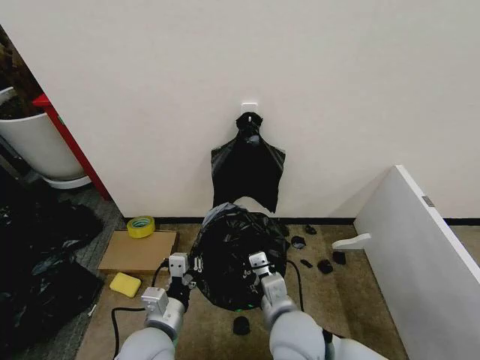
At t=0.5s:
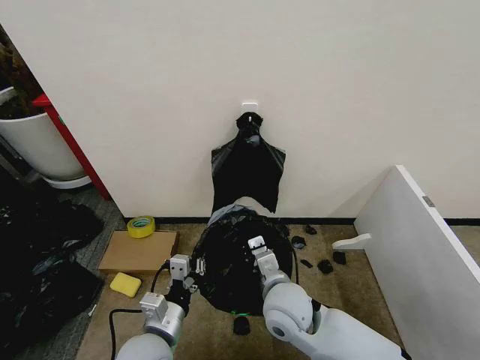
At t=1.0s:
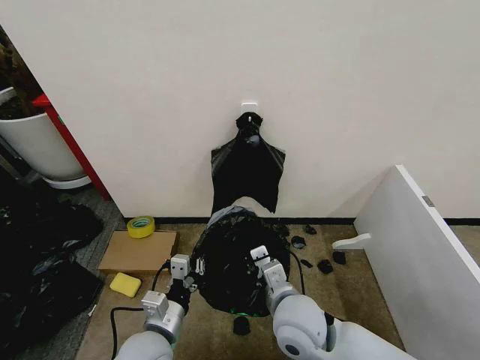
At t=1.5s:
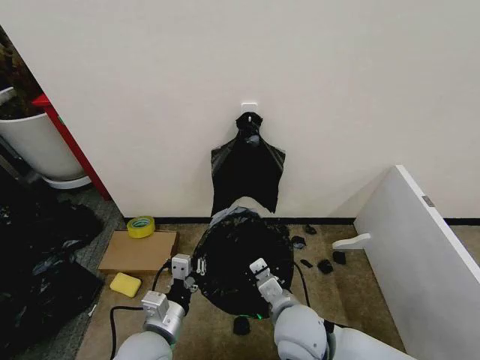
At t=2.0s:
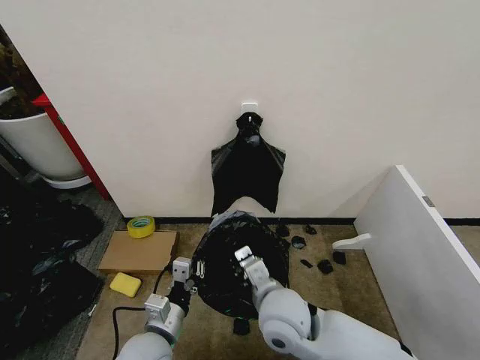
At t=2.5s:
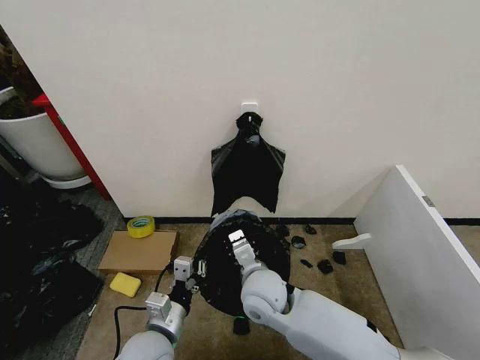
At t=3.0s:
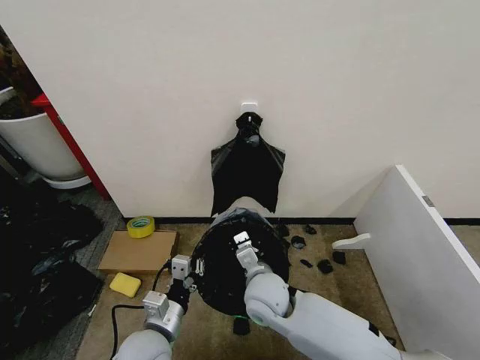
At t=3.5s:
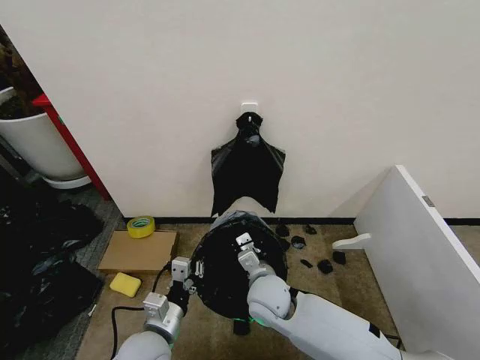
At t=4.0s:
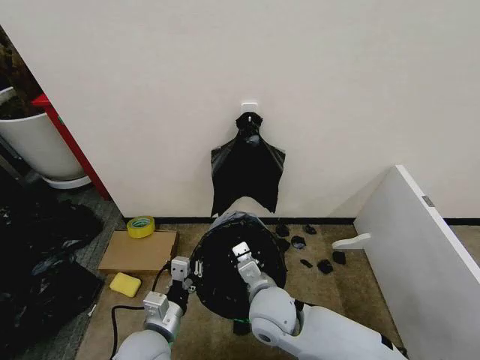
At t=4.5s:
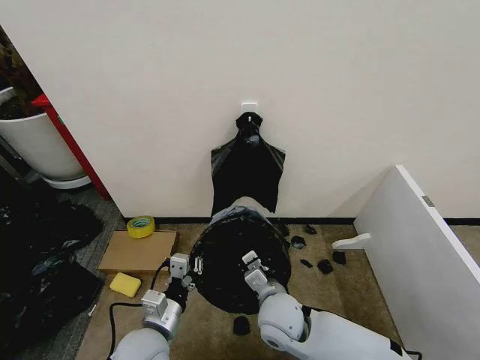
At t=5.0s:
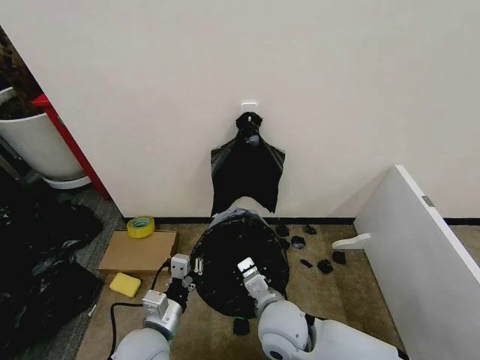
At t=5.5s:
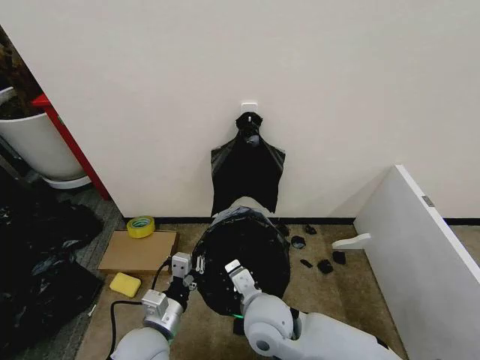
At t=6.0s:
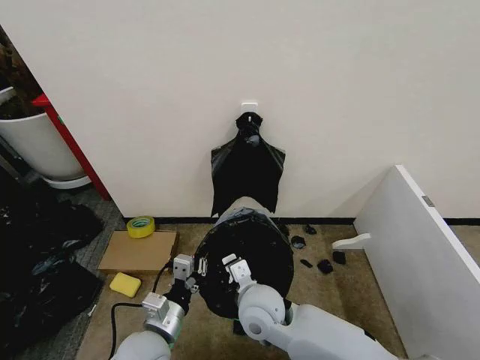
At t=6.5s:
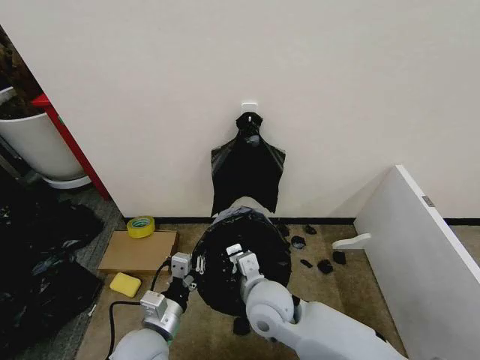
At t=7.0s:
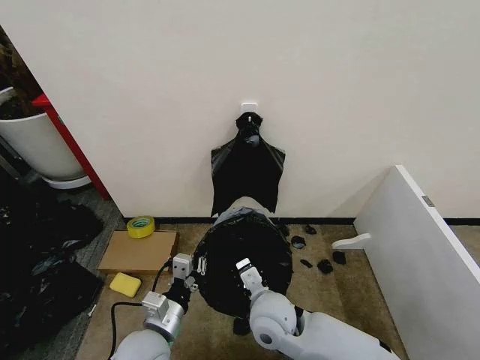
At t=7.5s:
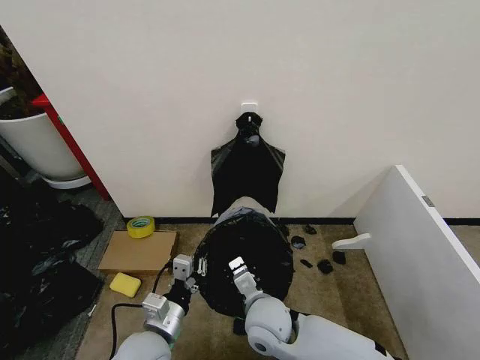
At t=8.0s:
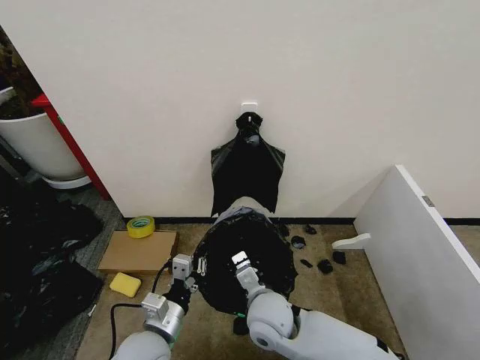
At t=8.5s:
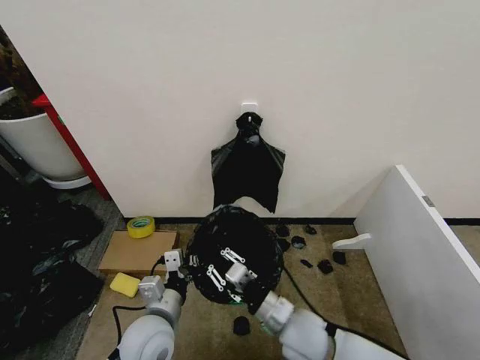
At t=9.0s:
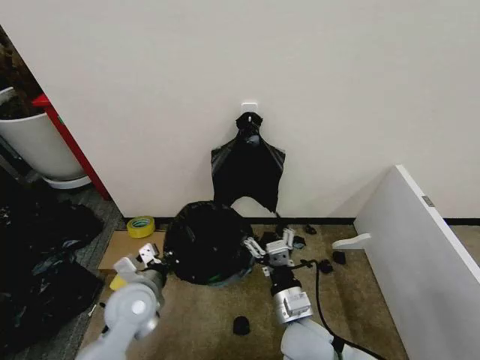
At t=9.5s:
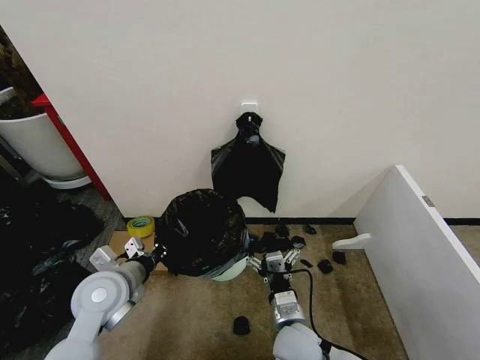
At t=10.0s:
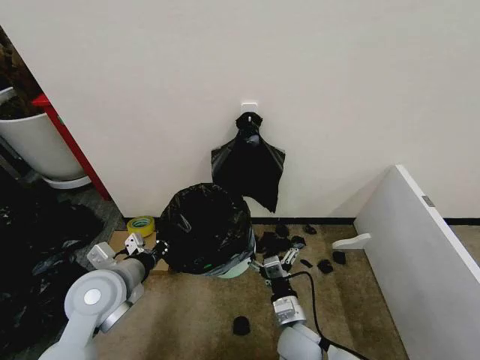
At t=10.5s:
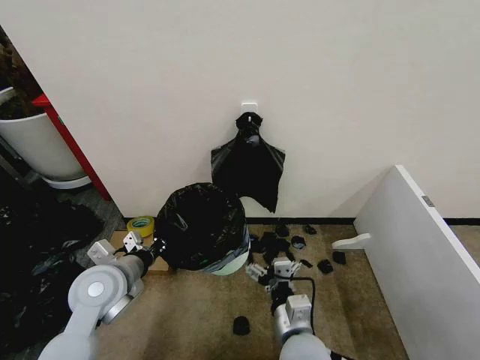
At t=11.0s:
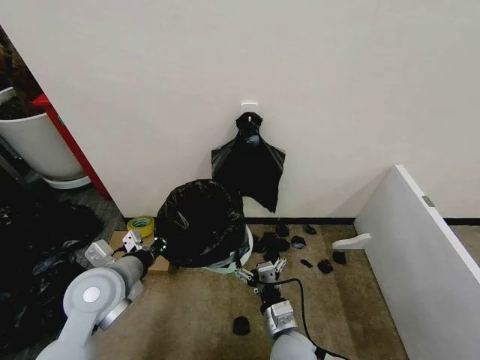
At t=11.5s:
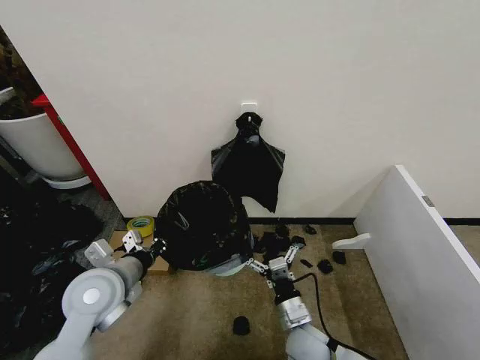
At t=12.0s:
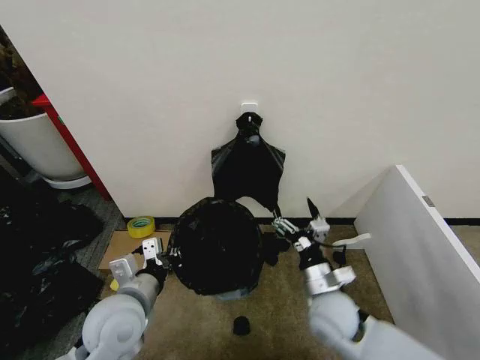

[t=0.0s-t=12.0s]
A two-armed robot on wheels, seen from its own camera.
Task of the whole recording: Place the garbage bag over the trash bin.
t=4.0s to t=8.0s: The grippers stay close to where they were, moving slightly.
t=8.0s to t=10.0s: The left gripper is displaced upward, forward and to the left by about 15 cm, while the right gripper moves downward and to the right, roughly 10 cm, and opens its fingers.
t=10.0s to t=12.0s: The right gripper moves up and down over some 10 cm, changing direction 2 times. Meanwhile the left gripper moves roughly 5 cm.

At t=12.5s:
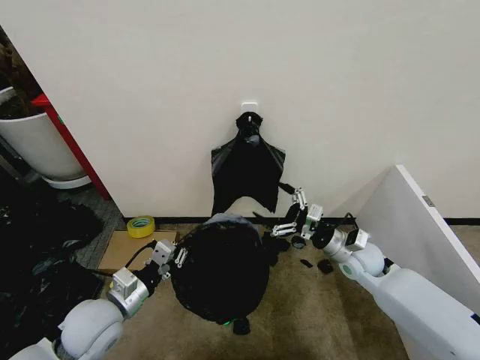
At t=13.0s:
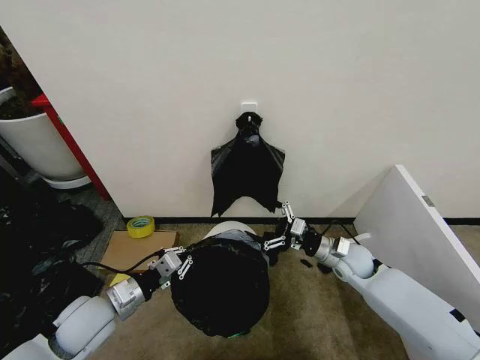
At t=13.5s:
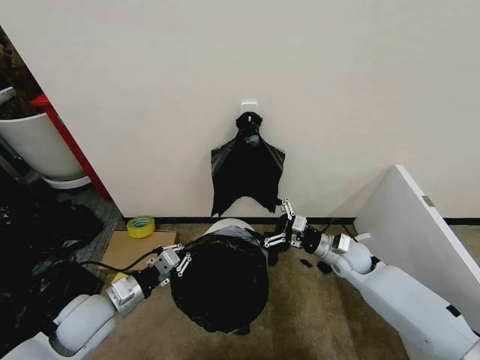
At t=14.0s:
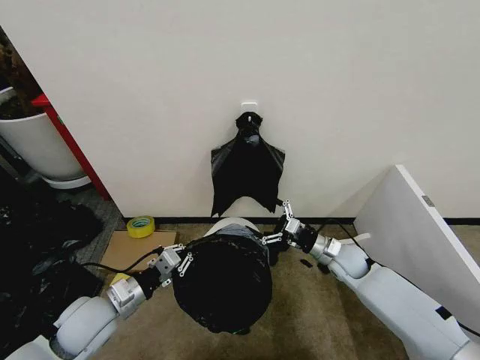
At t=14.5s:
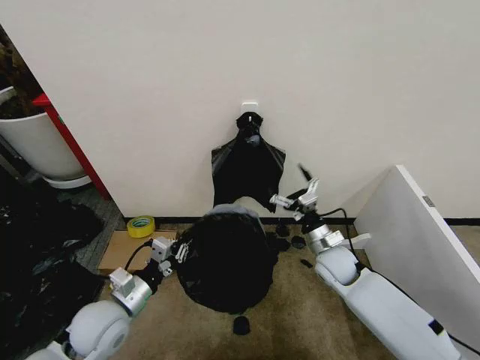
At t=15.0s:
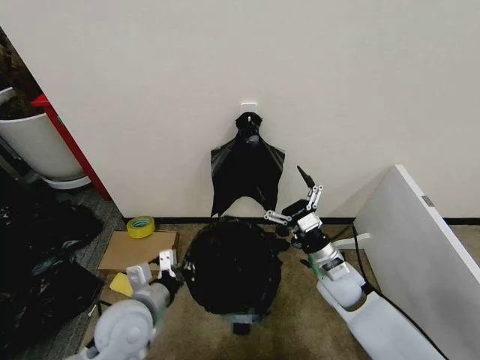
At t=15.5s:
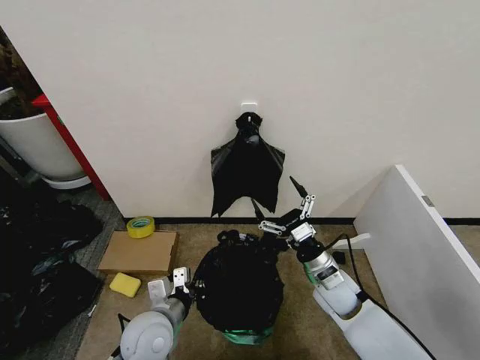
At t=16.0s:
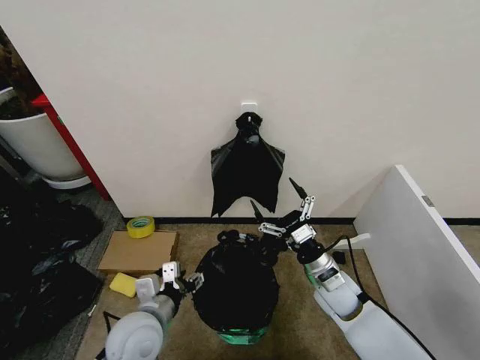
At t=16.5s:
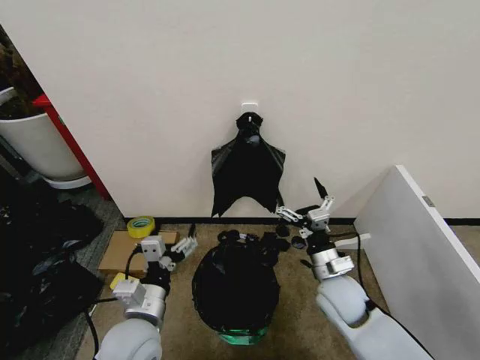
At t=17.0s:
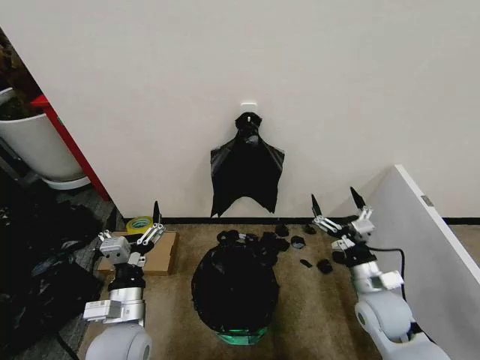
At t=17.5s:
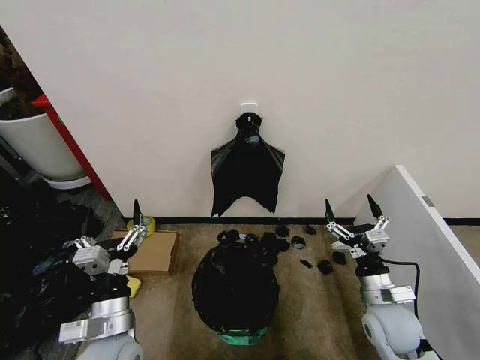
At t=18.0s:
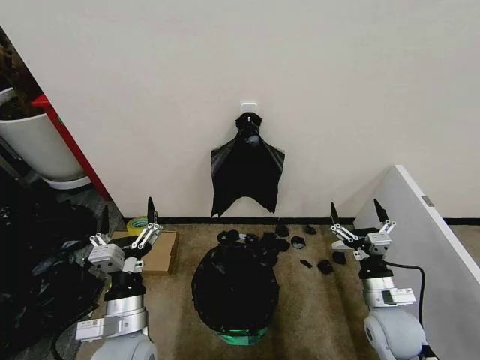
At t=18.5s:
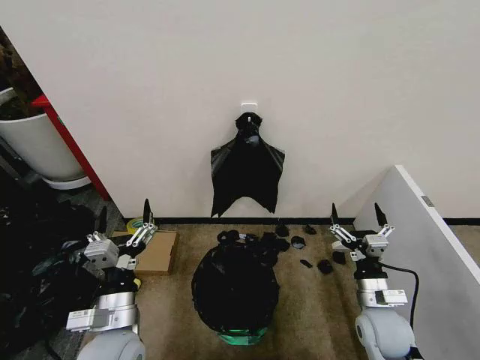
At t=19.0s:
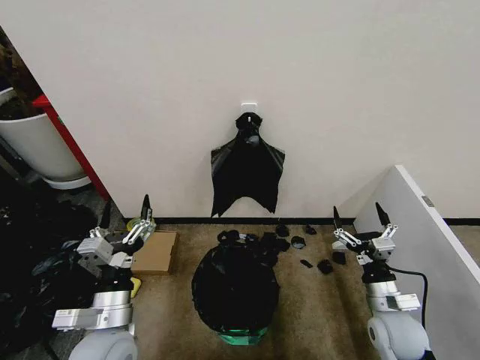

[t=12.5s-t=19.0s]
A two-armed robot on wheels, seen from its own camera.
Task of the whole recording: Place the garbage bag over the trash bin.
t=12.5s to t=14.5s: The right gripper changes place by some 5 cm.
t=14.5s to t=17.0s: The right gripper is displaced backward and to the right by some 15 cm; the left gripper heads to the right, covering approximately 5 cm, and opens.
t=17.0s to t=19.0s: The grippers stay close to where they were, moving slightly.
